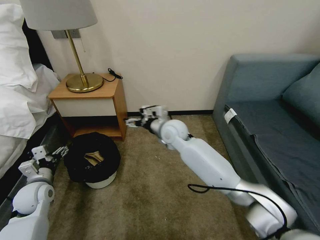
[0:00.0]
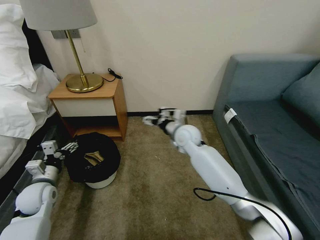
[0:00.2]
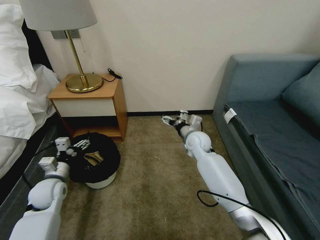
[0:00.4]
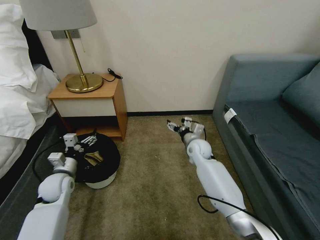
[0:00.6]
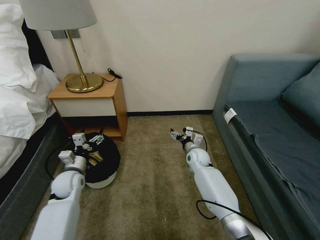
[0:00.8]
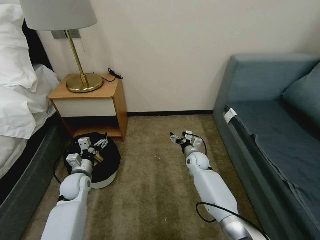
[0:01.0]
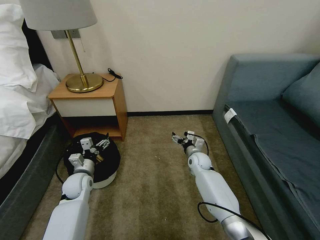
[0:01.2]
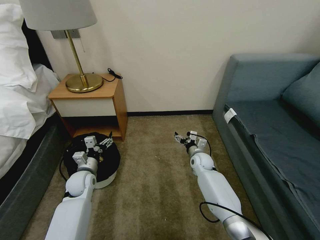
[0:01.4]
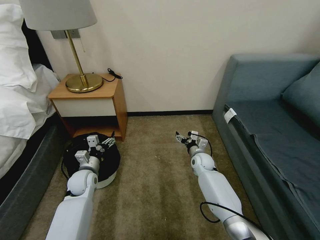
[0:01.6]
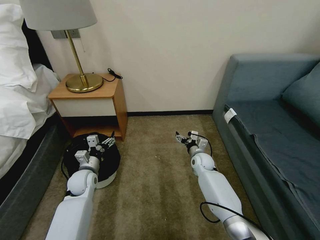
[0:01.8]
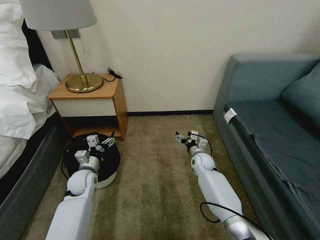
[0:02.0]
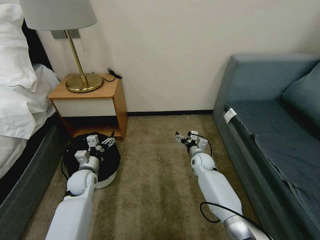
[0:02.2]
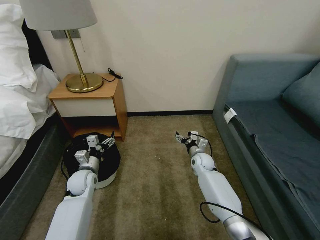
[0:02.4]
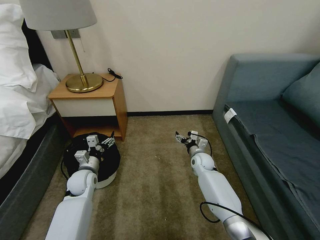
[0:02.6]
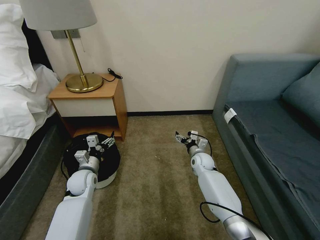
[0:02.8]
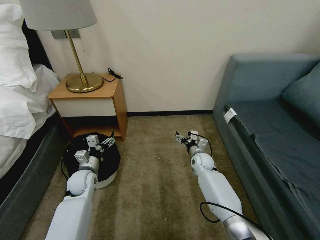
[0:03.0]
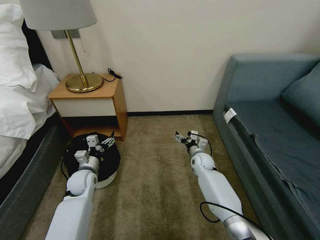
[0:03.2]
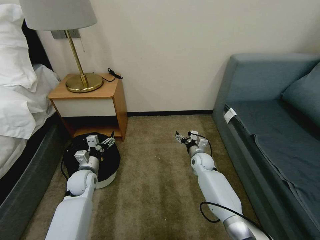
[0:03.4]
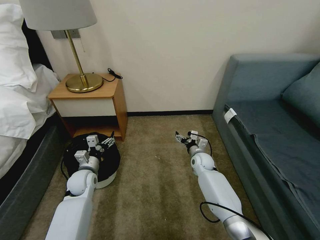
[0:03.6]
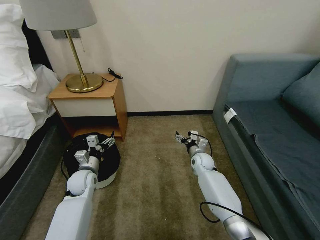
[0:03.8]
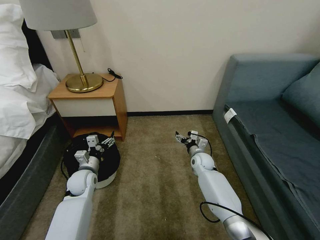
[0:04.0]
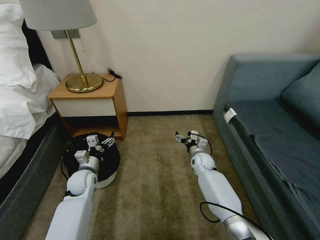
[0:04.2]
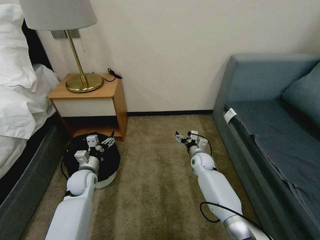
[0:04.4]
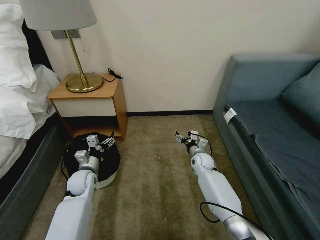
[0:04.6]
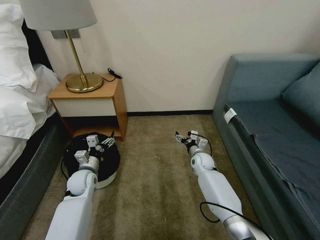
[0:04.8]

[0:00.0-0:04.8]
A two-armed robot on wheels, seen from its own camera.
Task of the whole recording: Pick up the trash bin, then pick up the garbage on the floor and place it into the trash bin.
0:00.0 to 0:01.6: The left gripper heads to the right, forward and downward, covering about 15 cm. The right gripper travels downward and to the right by roughly 25 cm.
0:01.6 to 0:04.8: Neither gripper changes place.

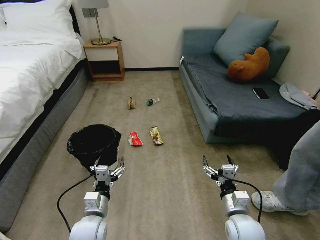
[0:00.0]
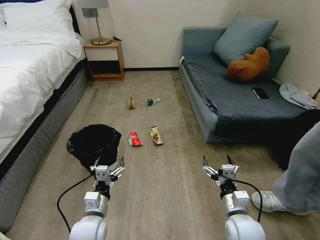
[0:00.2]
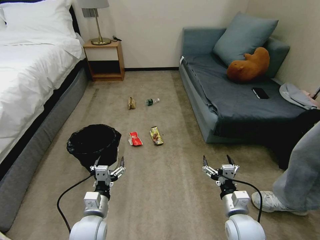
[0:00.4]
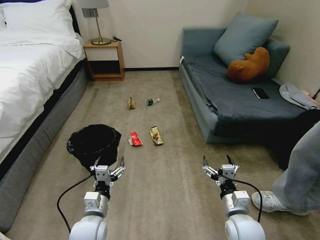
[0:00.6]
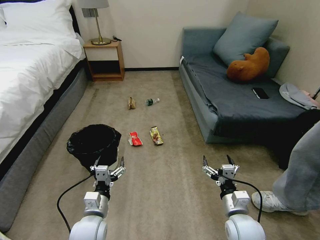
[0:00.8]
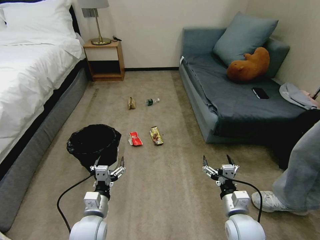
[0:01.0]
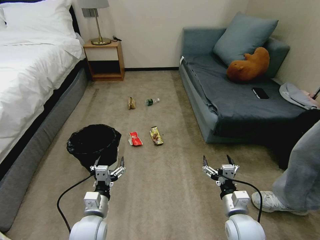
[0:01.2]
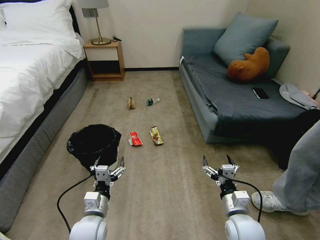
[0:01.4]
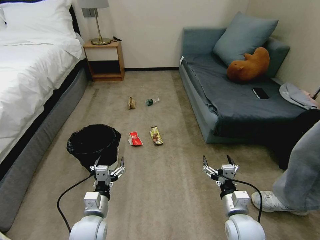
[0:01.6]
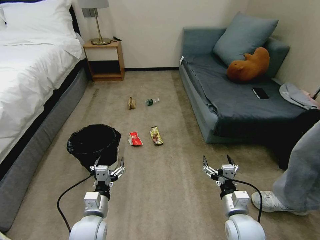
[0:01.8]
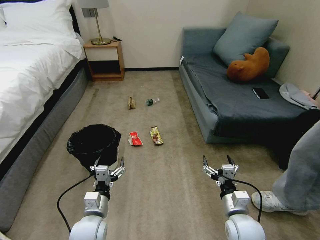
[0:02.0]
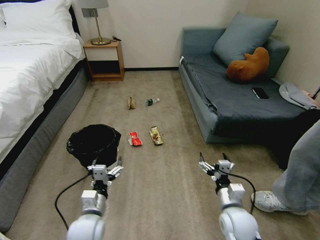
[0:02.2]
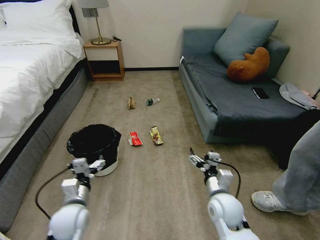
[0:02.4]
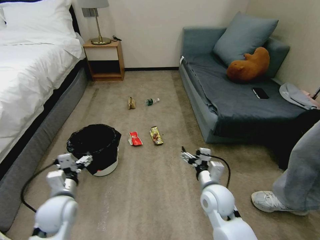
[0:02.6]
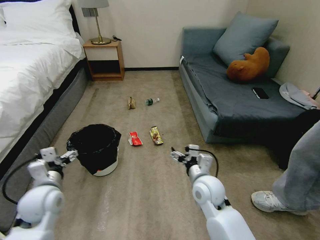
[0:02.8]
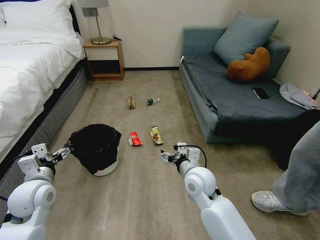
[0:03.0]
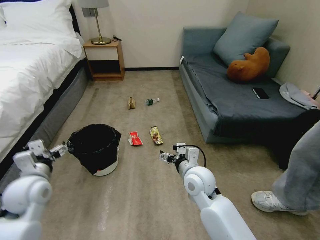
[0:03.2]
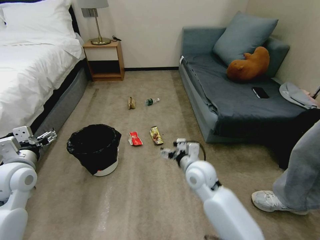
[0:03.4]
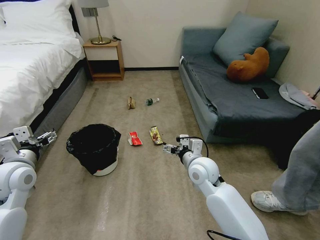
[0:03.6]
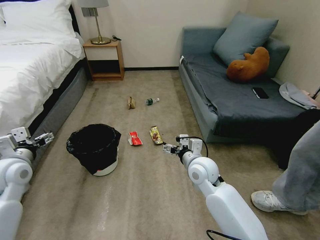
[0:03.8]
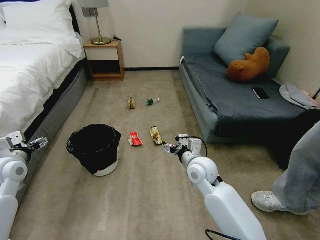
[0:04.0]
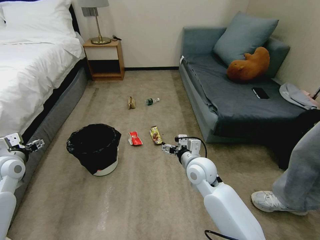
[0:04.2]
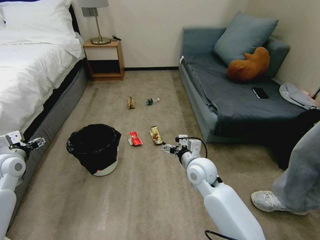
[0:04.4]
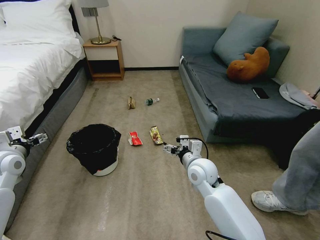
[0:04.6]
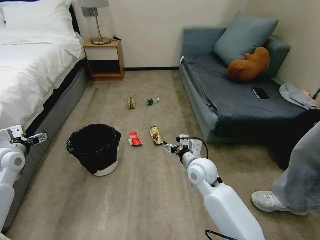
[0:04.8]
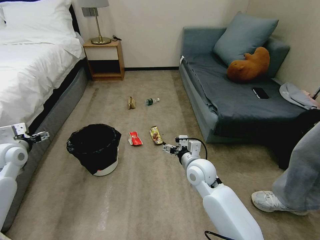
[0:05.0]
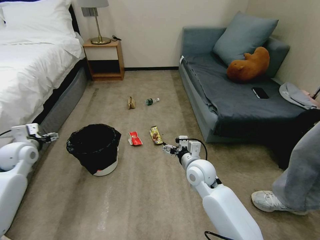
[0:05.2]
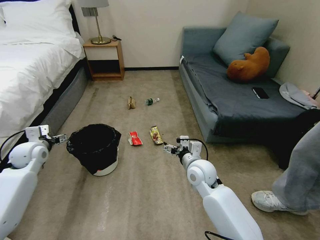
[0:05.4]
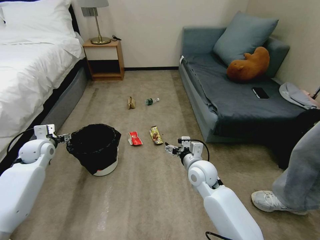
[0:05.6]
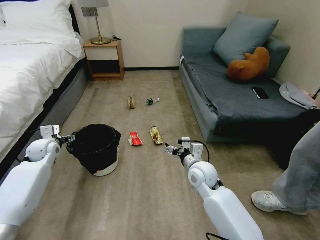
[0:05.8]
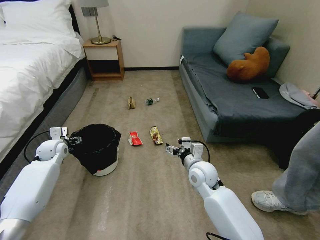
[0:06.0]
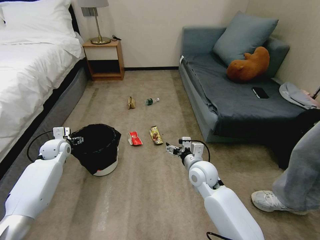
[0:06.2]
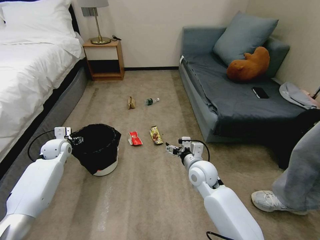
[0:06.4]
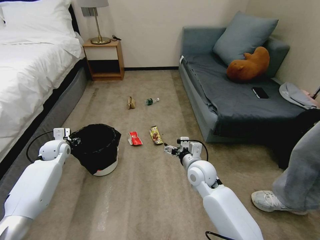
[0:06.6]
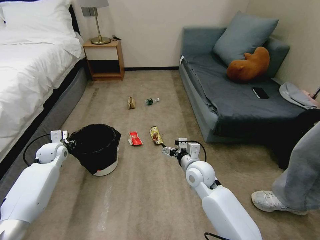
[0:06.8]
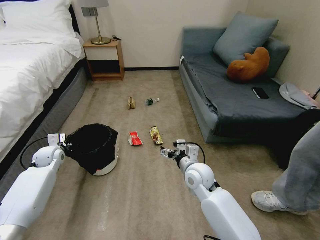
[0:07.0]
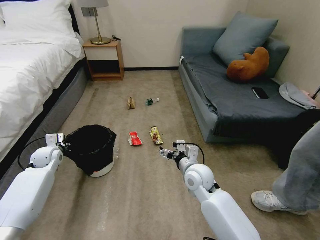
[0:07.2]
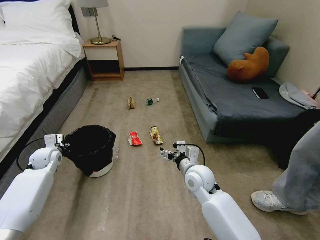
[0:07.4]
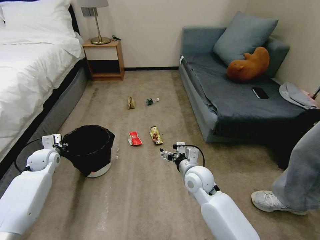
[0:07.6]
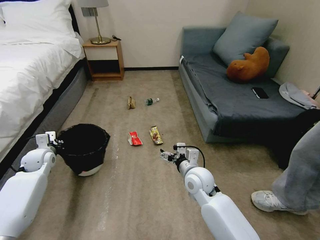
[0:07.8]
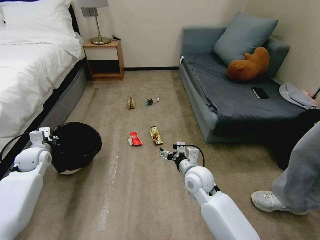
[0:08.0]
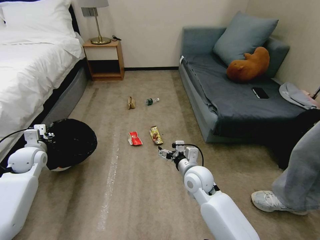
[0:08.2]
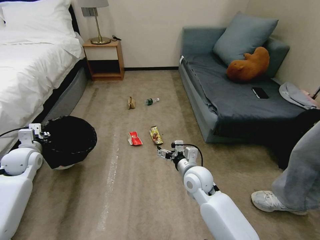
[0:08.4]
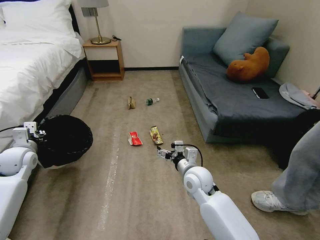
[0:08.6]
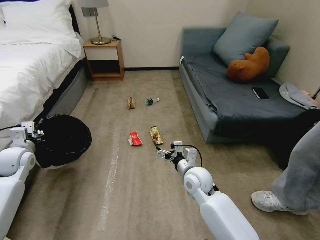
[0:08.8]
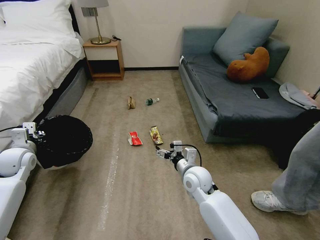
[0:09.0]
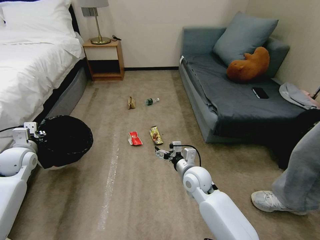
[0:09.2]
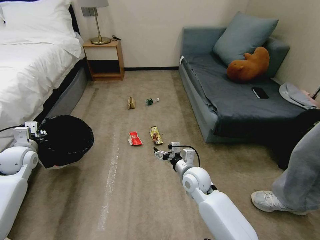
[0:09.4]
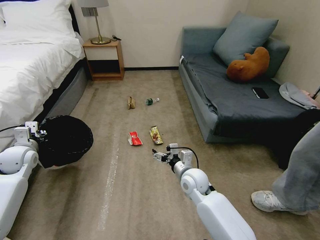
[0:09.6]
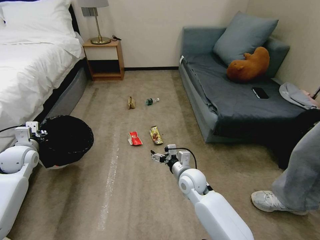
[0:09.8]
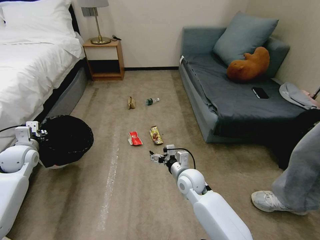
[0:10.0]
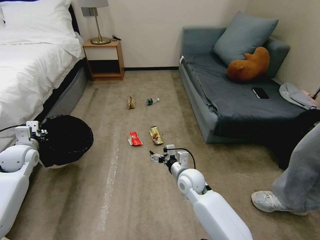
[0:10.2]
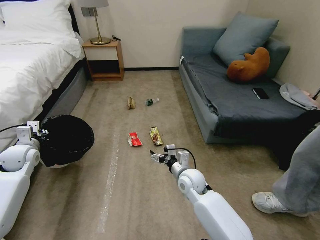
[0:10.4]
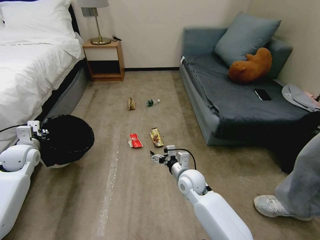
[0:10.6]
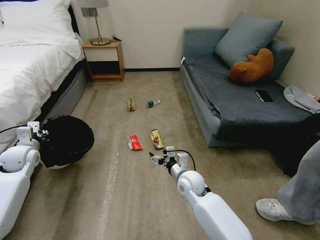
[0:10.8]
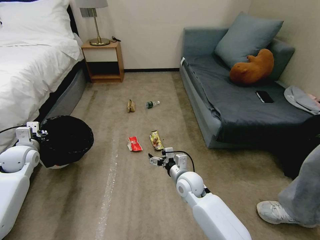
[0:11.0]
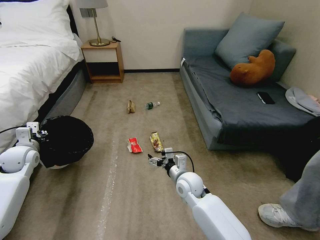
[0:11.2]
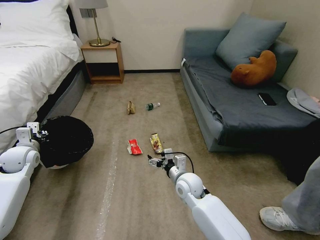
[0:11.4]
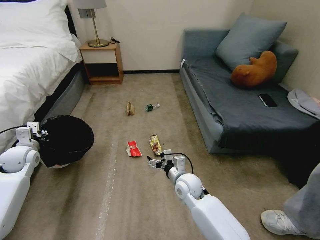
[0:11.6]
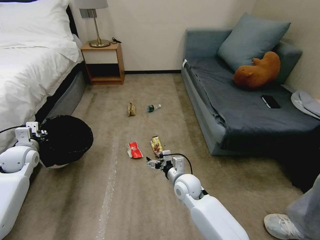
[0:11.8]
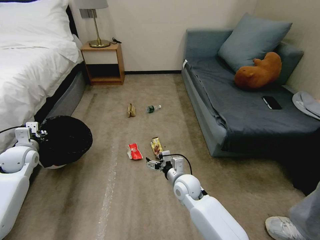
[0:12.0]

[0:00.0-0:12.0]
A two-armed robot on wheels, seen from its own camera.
Task of the whole recording: Pick up the trash bin, then pick up the garbage on the floor and place it into the trash bin.
0:01.6 to 0:03.0: The right gripper travels to the left, forward and upward by about 20 cm. The left gripper travels to the left, upward and forward by about 20 cm.
0:03.0 to 0:04.4: The left gripper goes roughly 15 cm to the left and forward.
0:04.4 to 0:06.0: The left gripper heads forward and downward, covering approximately 15 cm.
0:06.0 to 0:07.6: The left gripper closes.
0:07.6 to 0:09.0: The left gripper goes roughly 10 cm upward and backward.
0:09.0 to 0:10.4: The grippers stay close to where they were, moving slightly.

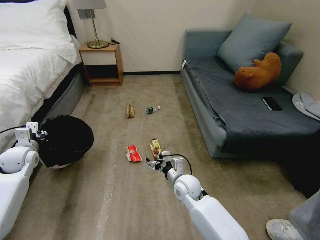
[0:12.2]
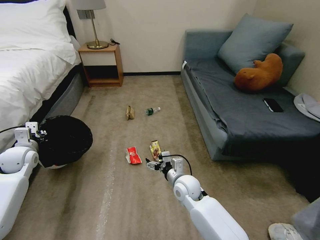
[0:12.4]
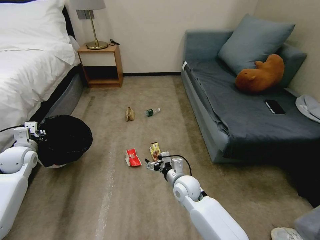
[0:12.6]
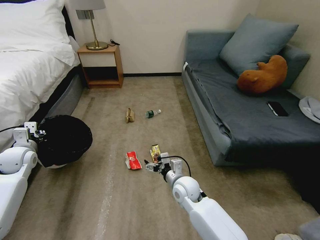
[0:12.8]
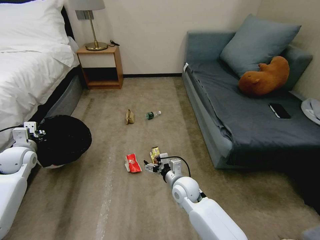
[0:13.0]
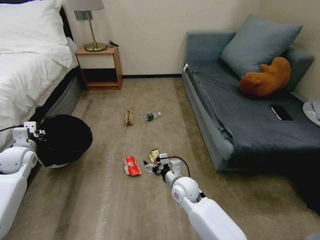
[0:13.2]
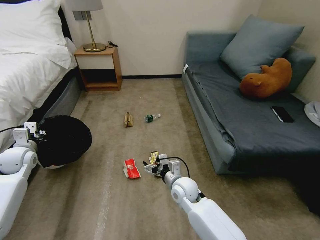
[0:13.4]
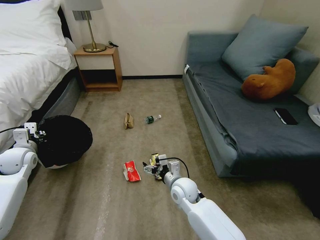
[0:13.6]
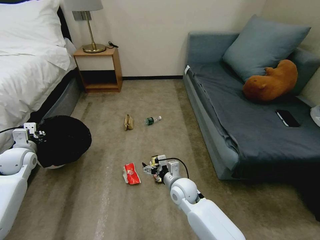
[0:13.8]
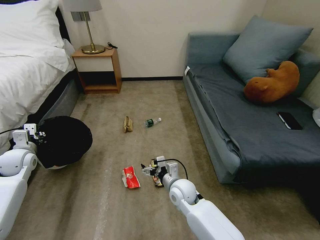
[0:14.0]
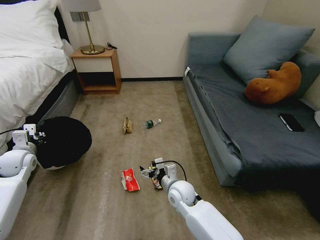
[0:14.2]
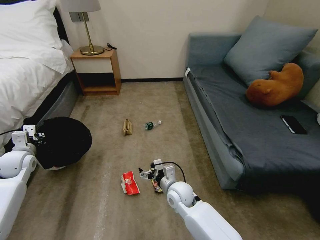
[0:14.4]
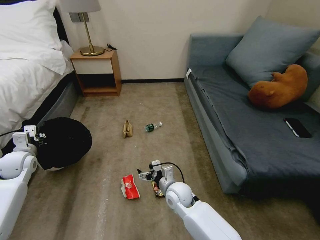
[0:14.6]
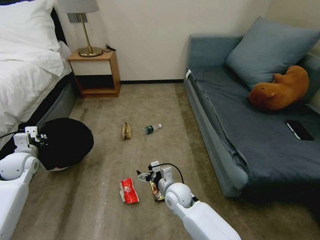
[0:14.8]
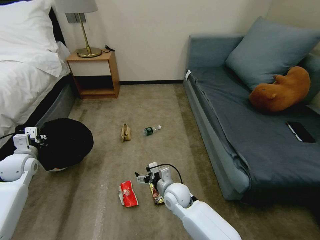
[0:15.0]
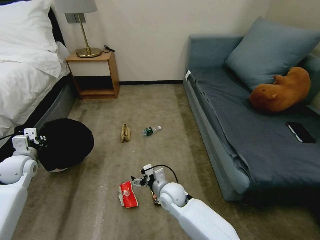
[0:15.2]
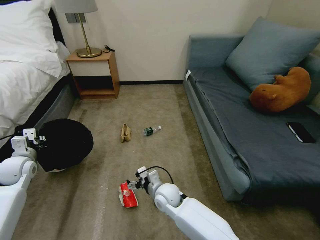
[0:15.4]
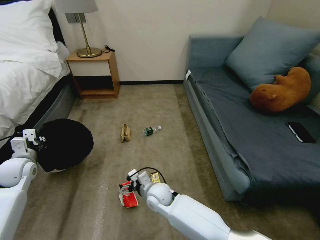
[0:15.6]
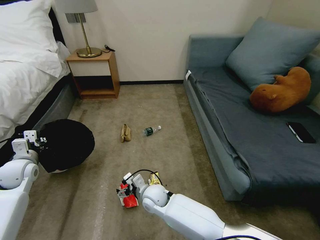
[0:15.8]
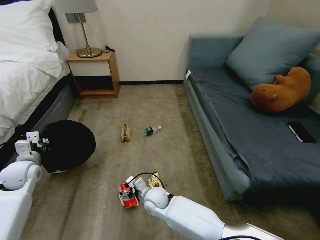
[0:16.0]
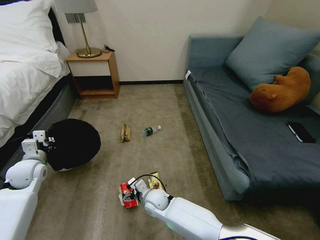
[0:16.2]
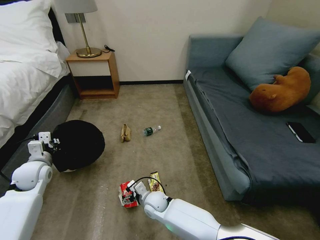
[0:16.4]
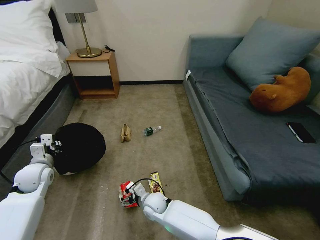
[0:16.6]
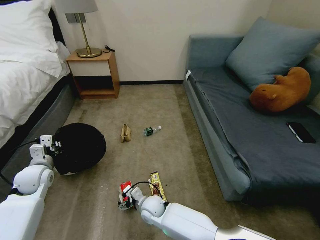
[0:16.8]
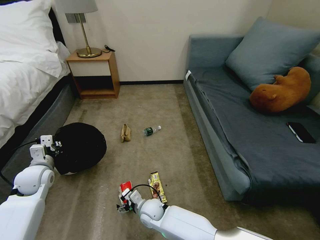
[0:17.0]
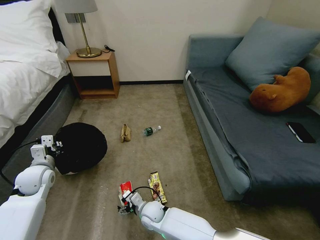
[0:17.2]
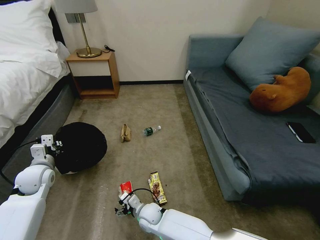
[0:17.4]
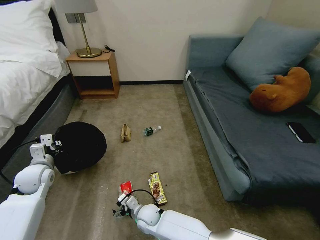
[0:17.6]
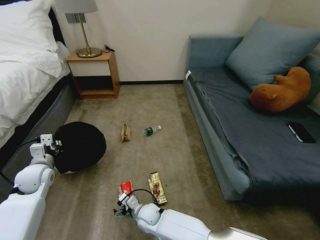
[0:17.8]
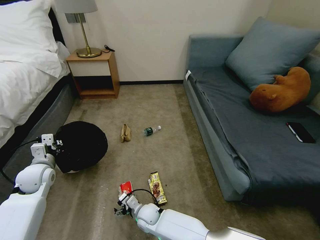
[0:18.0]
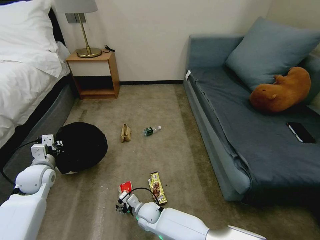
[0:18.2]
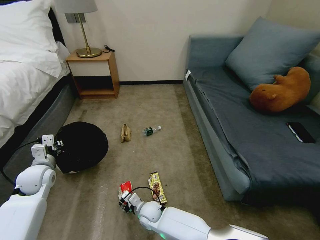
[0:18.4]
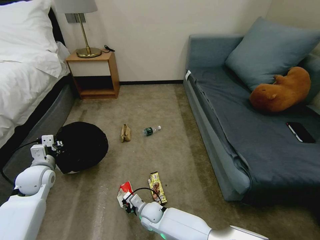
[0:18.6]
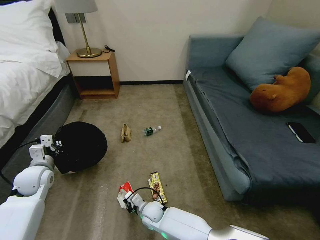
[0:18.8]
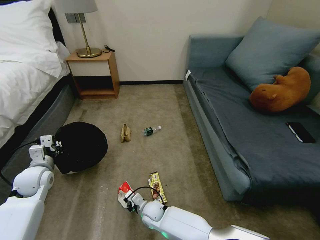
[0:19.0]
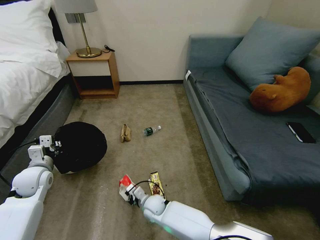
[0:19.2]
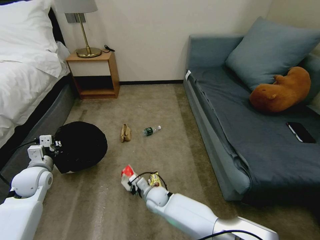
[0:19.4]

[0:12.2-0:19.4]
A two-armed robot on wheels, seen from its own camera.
Task of the whole recording: Pick up the trash bin, then pick up the garbage on the floor and place it into the trash bin.
0:15.0 to 0:16.6: The left gripper goes some 5 cm to the right. The right gripper travels to the left and downward by some 10 cm.
0:16.6 to 0:18.0: The right gripper moves some 5 cm.
0:18.0 to 0:19.4: The right gripper shifts roughly 5 cm forward, and closes up.
